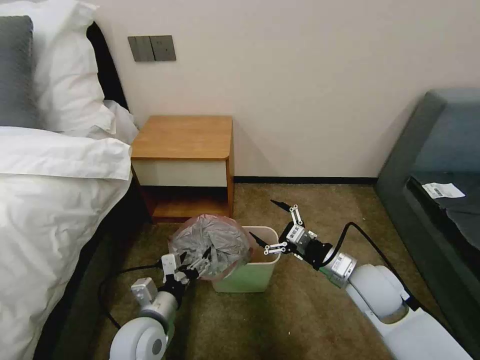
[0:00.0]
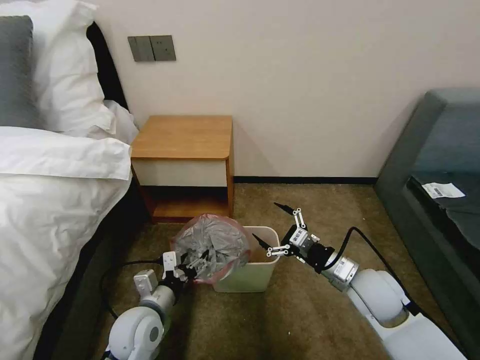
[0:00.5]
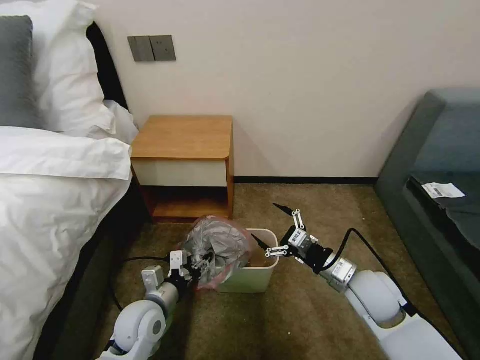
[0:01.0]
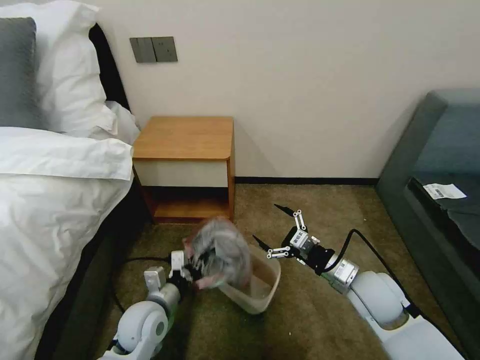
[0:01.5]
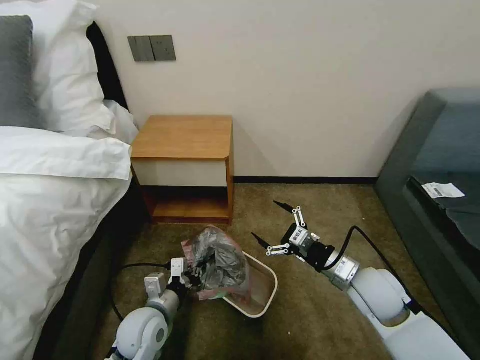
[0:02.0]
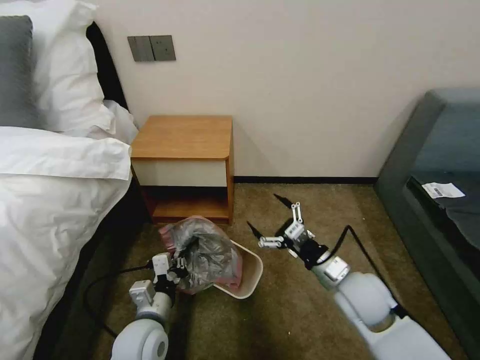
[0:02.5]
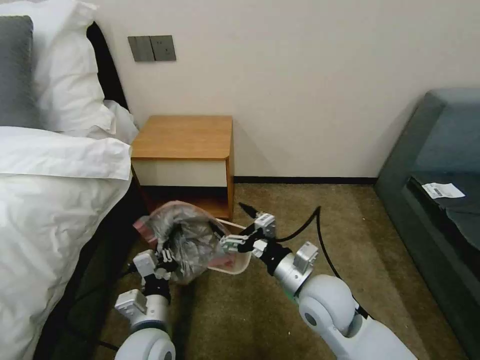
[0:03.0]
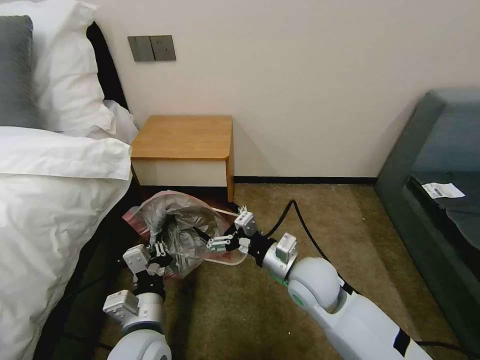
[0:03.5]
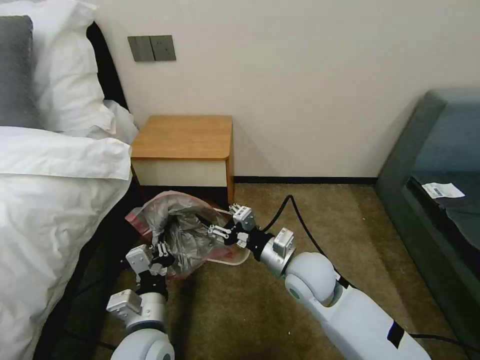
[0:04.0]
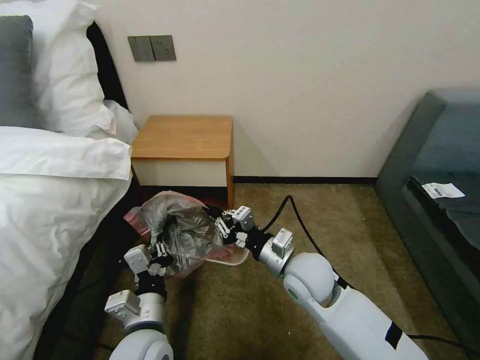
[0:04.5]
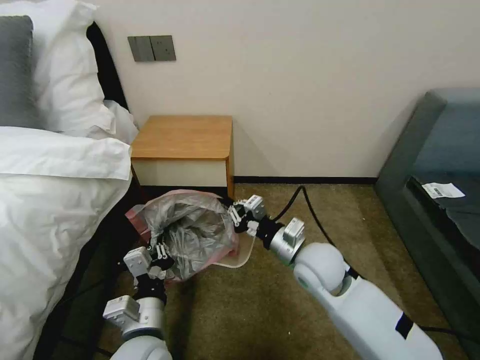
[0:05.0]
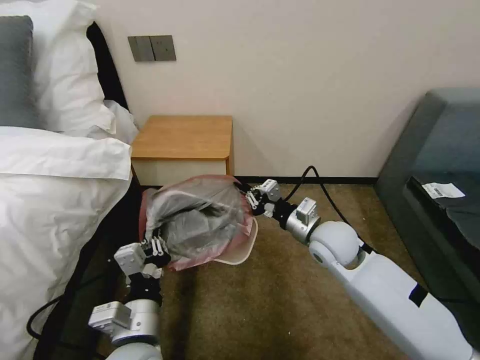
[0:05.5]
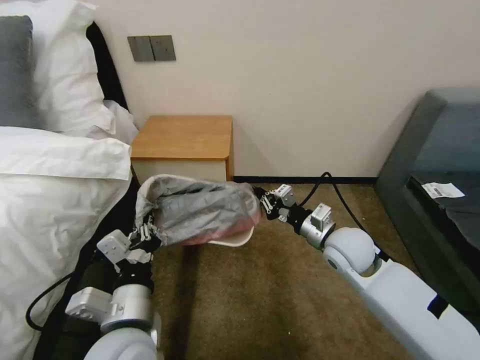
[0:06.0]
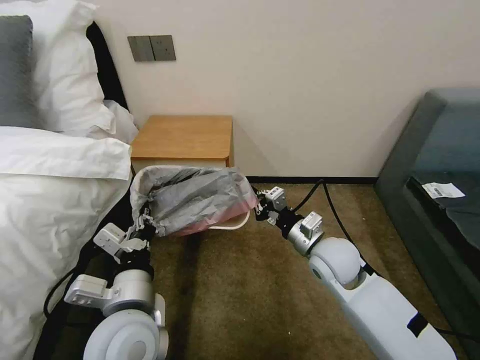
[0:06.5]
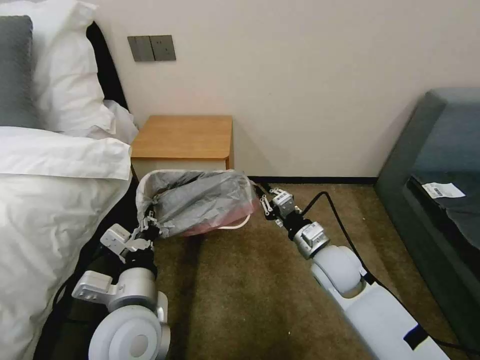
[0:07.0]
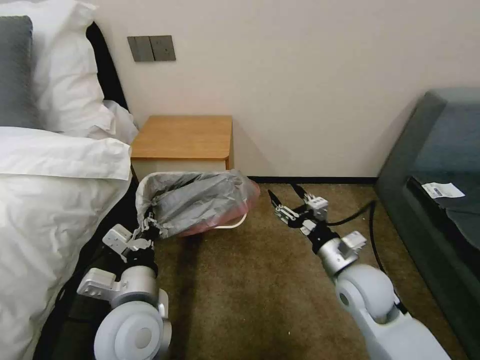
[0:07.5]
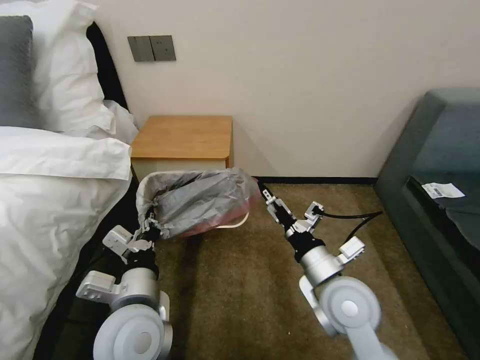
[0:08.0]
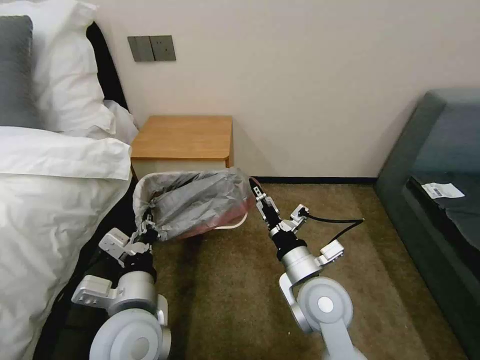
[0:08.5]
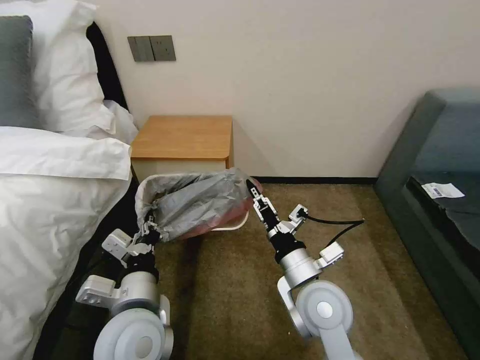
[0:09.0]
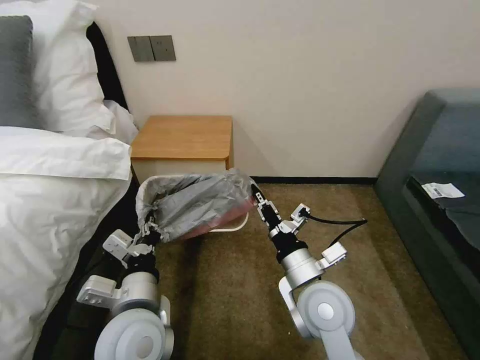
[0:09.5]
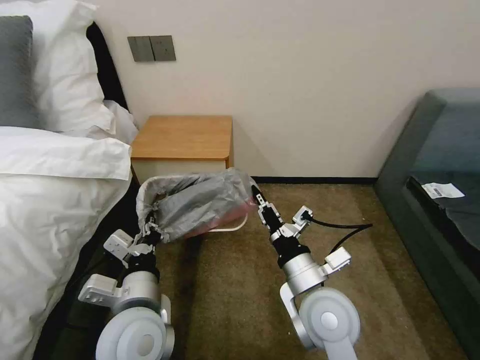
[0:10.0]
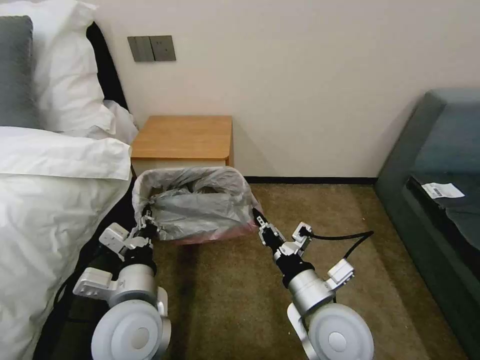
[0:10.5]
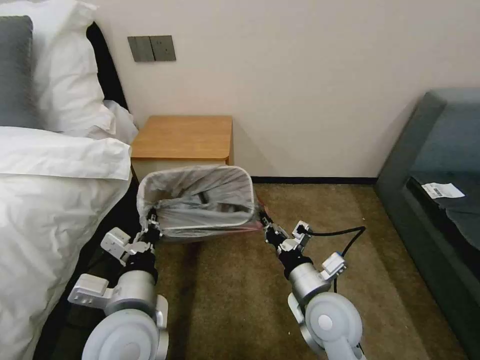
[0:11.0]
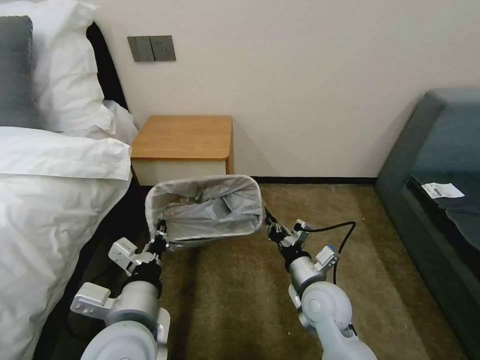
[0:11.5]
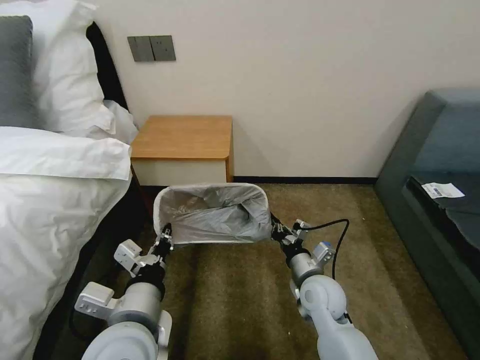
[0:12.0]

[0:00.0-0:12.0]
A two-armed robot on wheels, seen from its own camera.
Task of the whole recording: Pick up the garbage bag from the table and place it over the trash can.
0:00.0 to 0:02.0: The left gripper closes its fingers.
0:02.0 to 0:04.0: The left gripper goes some 10 cm upward and backward; the right gripper shifts some 15 cm to the left, and closes its fingers.
0:04.0 to 0:06.0: The left gripper is displaced upward by roughly 5 cm. The right gripper shifts about 10 cm to the right and forward, and closes its fingers.
0:06.0 to 0:08.0: The right gripper is displaced backward by some 10 cm, and opens its fingers.
0:08.0 to 0:10.0: The right gripper closes up.
0:10.0 to 0:12.0: The right gripper moves downward and forward, approximately 15 cm.

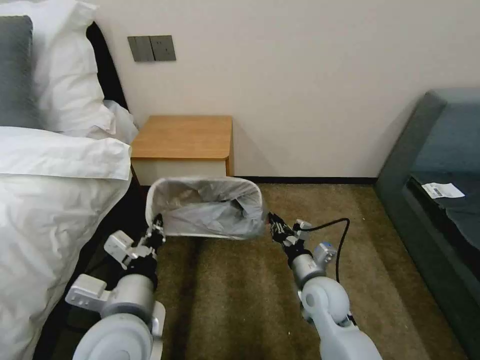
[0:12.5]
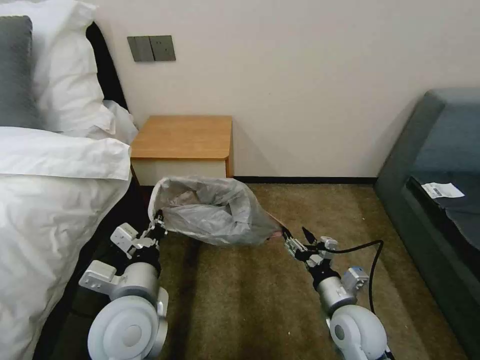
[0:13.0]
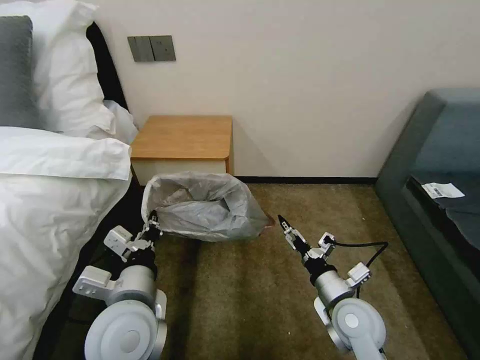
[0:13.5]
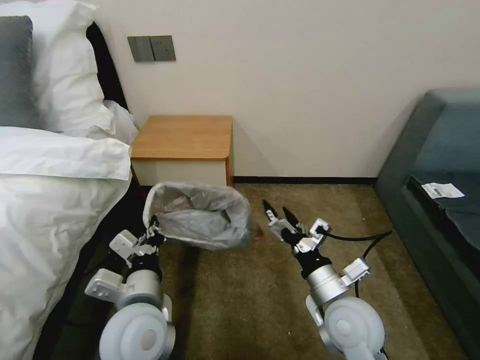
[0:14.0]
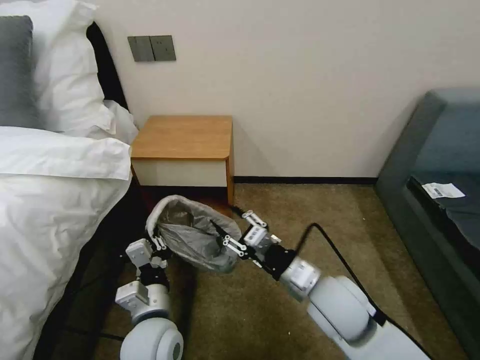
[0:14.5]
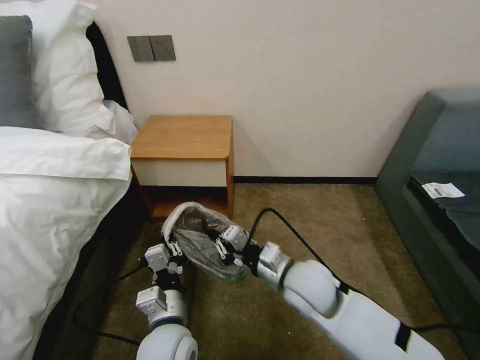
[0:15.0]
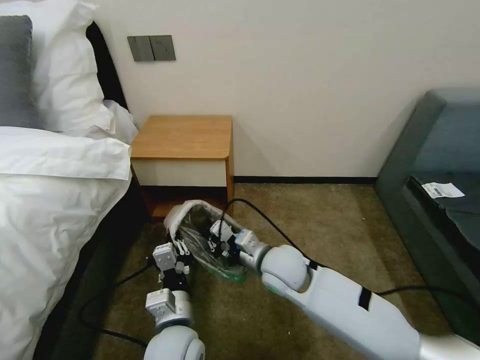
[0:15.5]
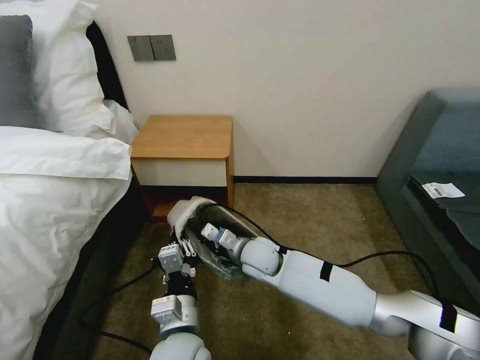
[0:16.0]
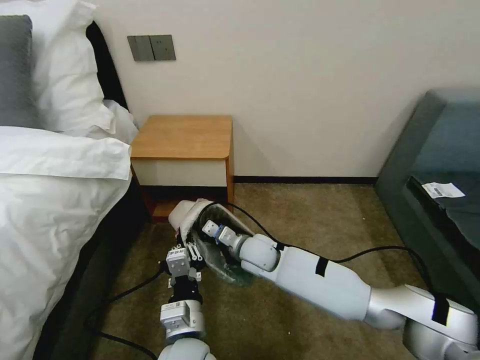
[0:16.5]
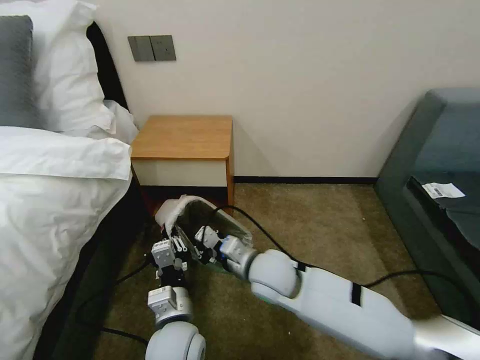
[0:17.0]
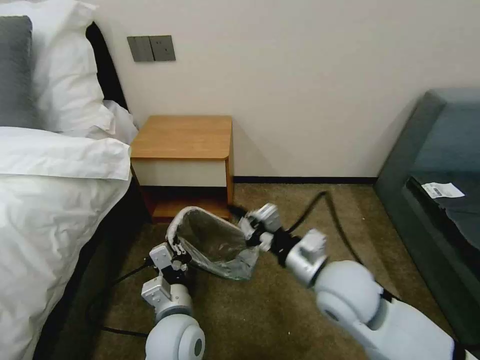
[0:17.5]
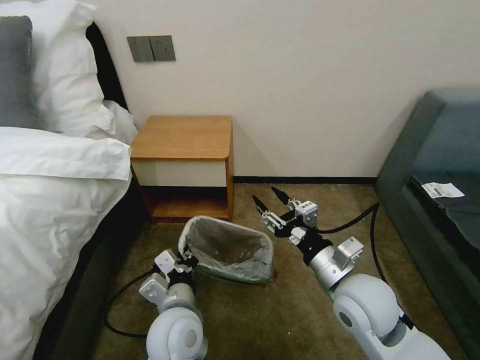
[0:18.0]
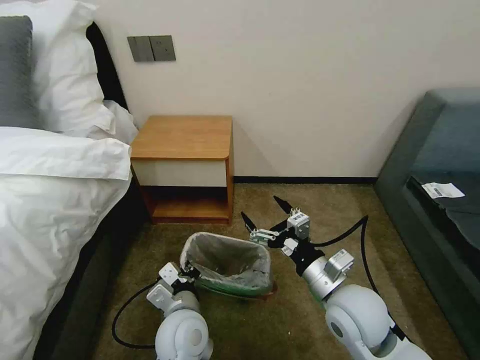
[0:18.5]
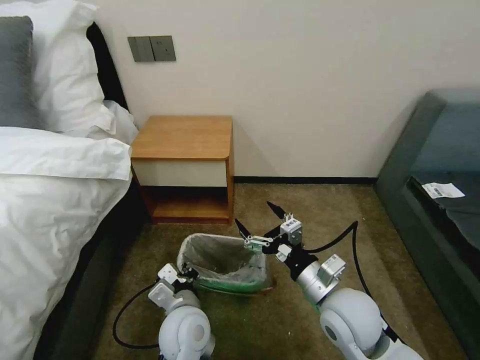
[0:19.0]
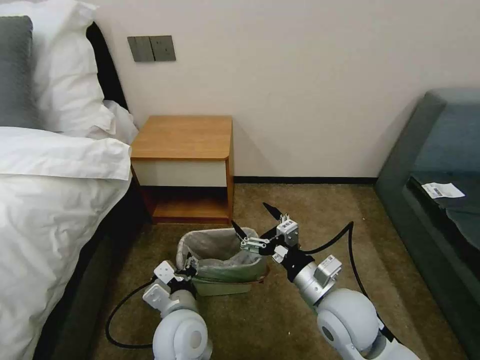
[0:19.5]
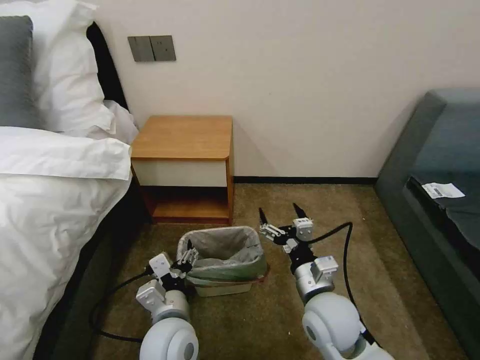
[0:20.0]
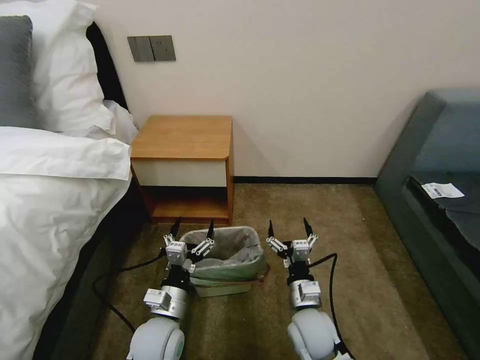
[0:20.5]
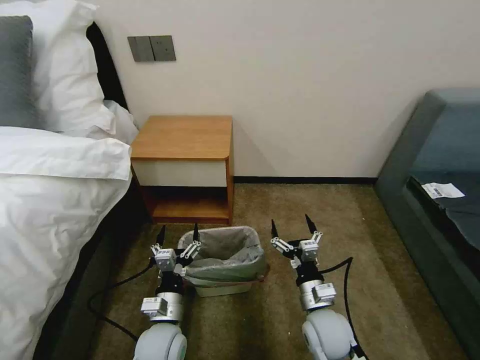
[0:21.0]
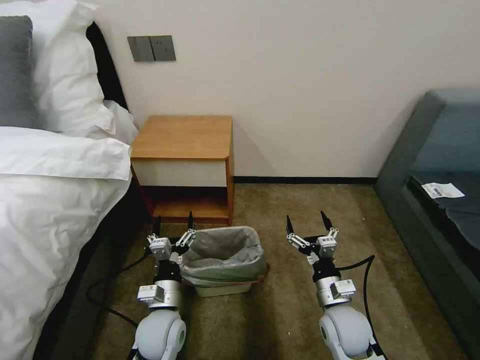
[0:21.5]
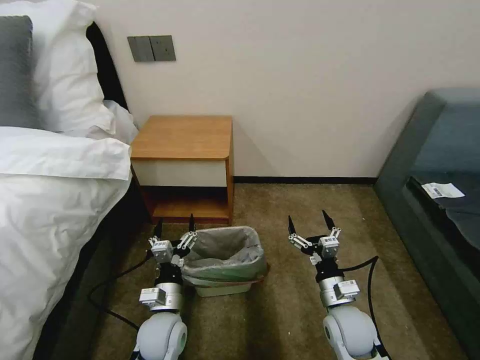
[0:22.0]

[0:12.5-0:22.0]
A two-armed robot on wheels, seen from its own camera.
Task of the whole recording: Pick up the garbage bag from the table and place it over the trash can.
0:12.5 to 0:14.5: The left gripper is displaced downward by roughly 10 cm; the right gripper goes approximately 10 cm upward, and opens.
0:14.5 to 0:16.5: The right gripper shifts some 20 cm forward, to the left and downward, and closes its fingers. The left gripper heads to the right, covering about 5 cm.
0:16.5 to 0:18.0: The right gripper heads to the right, backward and upward, covering approximately 25 cm, and opens its fingers; the left gripper moves roughly 5 cm.
0:18.0 to 0:20.0: The right gripper moves downward, approximately 5 cm, and opens up. The left gripper opens up.
0:20.0 to 0:22.0: The right gripper goes about 10 cm downward and to the right, while the left gripper heads downward, covering roughly 10 cm.
